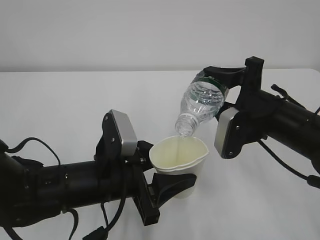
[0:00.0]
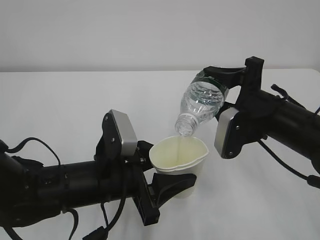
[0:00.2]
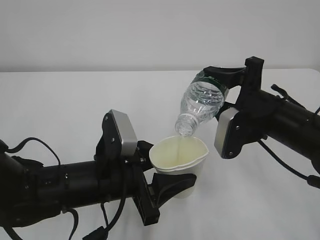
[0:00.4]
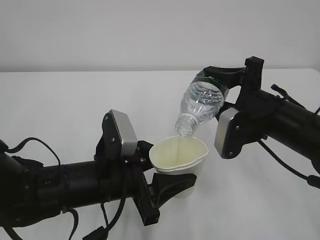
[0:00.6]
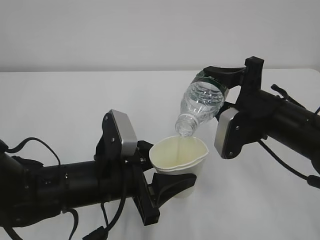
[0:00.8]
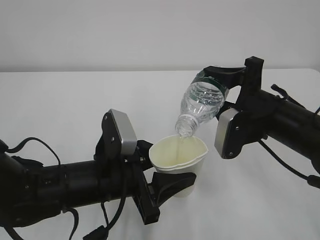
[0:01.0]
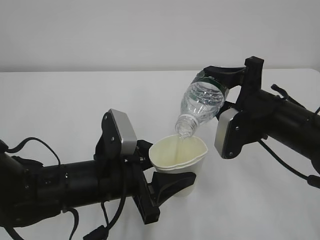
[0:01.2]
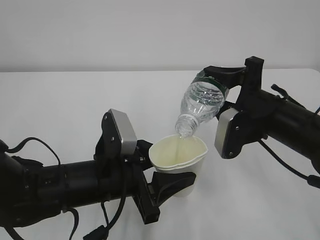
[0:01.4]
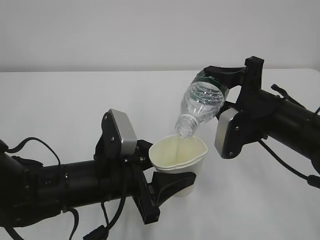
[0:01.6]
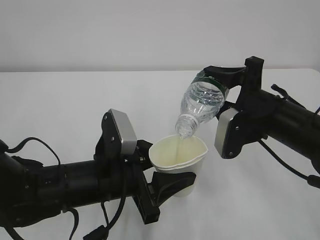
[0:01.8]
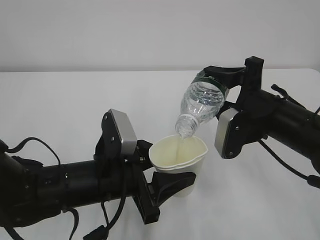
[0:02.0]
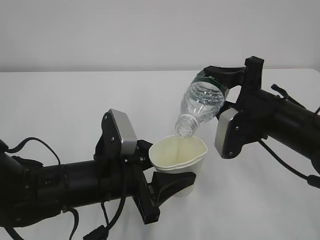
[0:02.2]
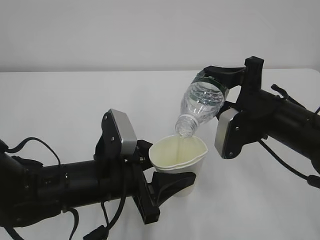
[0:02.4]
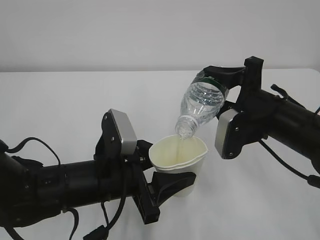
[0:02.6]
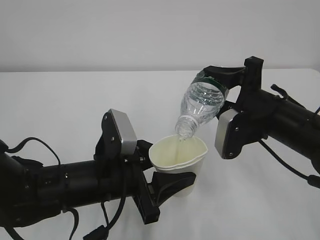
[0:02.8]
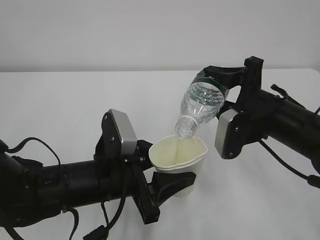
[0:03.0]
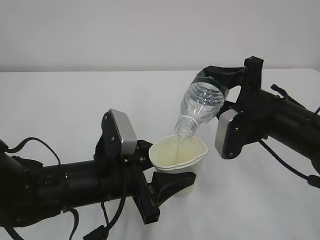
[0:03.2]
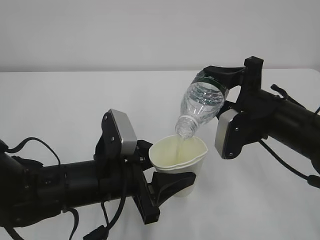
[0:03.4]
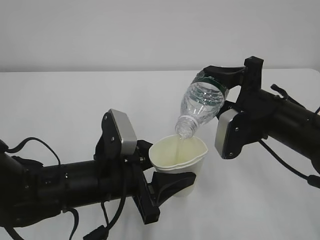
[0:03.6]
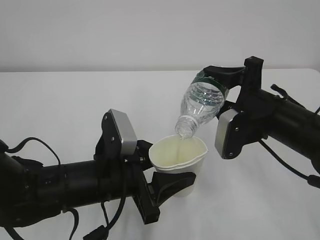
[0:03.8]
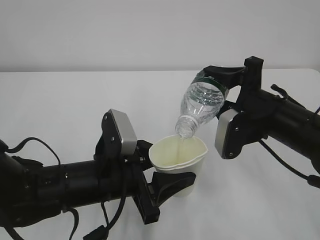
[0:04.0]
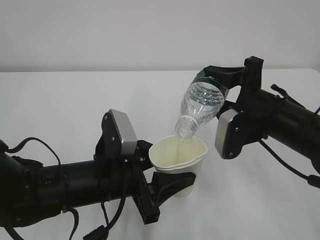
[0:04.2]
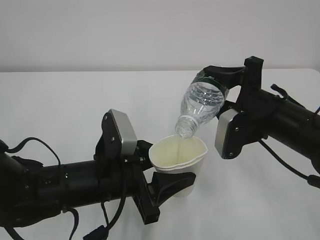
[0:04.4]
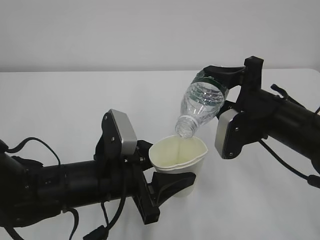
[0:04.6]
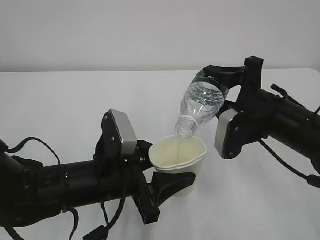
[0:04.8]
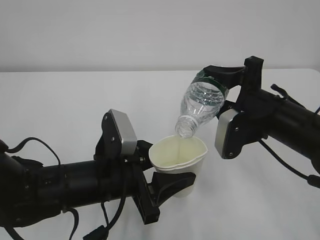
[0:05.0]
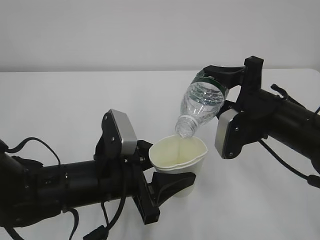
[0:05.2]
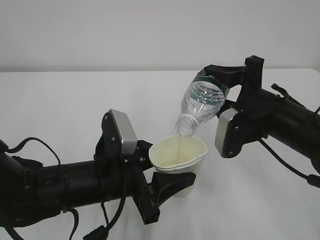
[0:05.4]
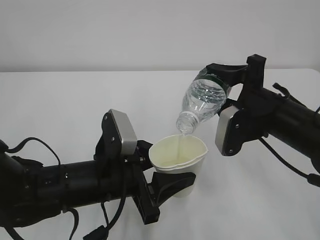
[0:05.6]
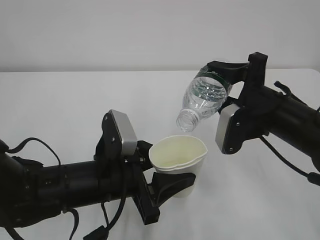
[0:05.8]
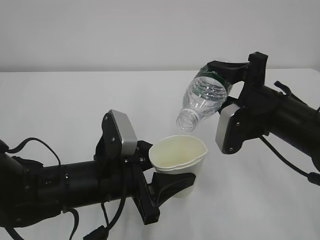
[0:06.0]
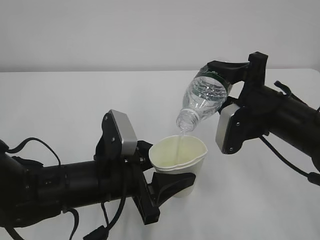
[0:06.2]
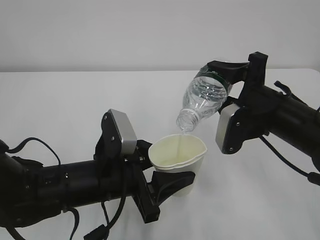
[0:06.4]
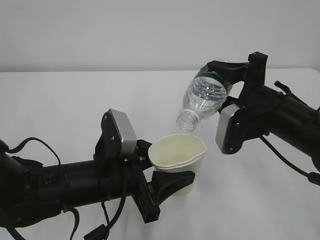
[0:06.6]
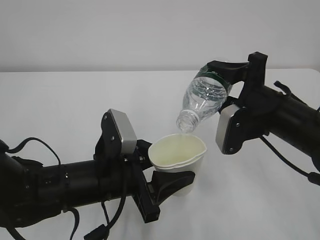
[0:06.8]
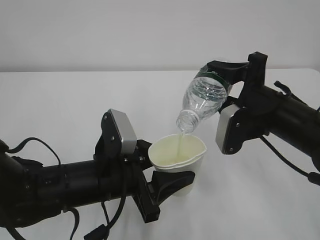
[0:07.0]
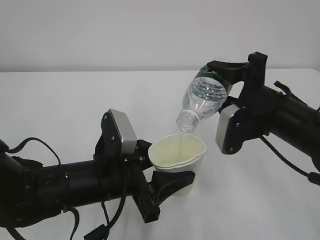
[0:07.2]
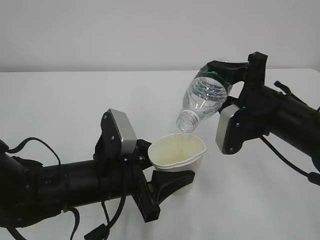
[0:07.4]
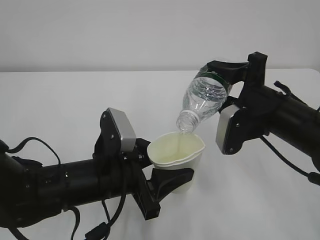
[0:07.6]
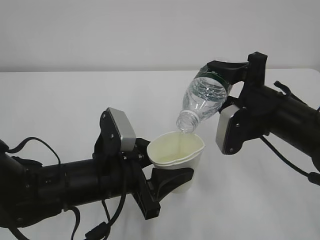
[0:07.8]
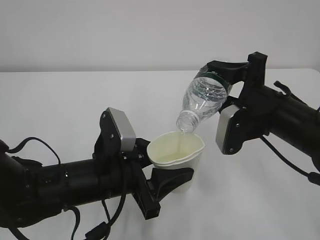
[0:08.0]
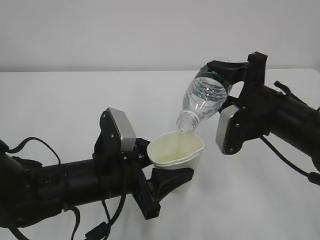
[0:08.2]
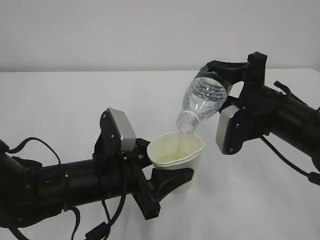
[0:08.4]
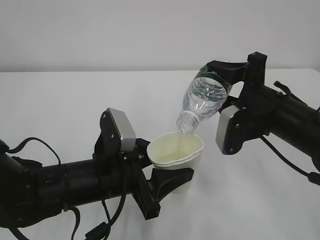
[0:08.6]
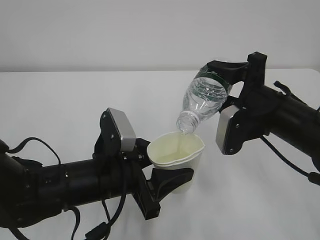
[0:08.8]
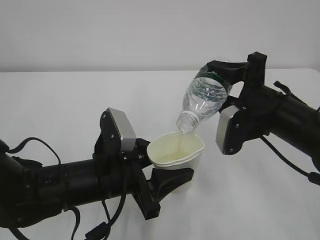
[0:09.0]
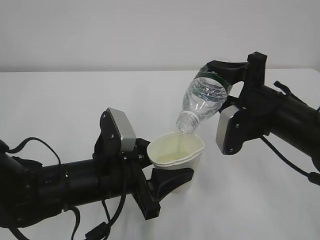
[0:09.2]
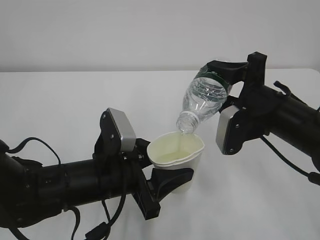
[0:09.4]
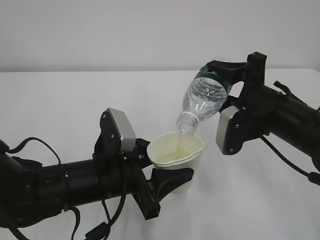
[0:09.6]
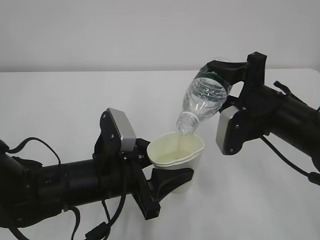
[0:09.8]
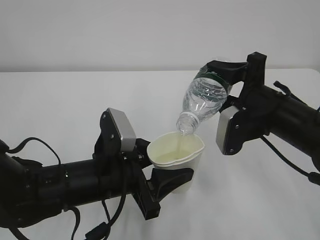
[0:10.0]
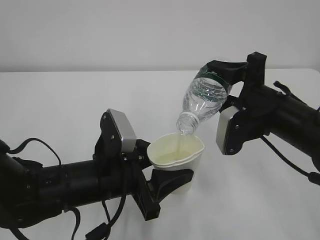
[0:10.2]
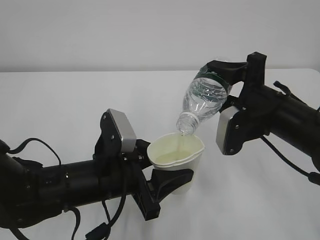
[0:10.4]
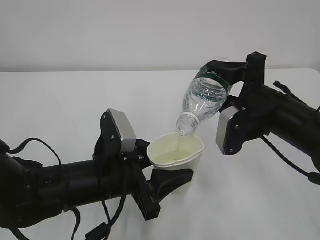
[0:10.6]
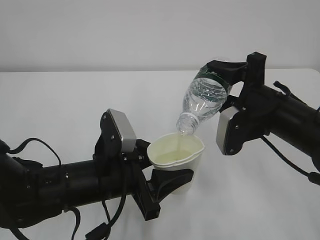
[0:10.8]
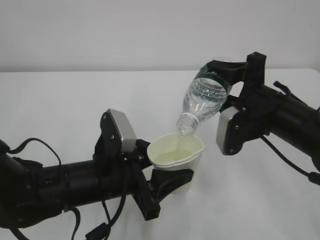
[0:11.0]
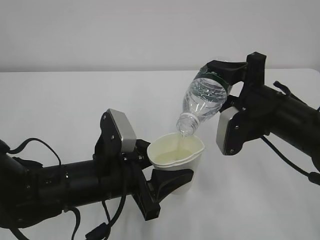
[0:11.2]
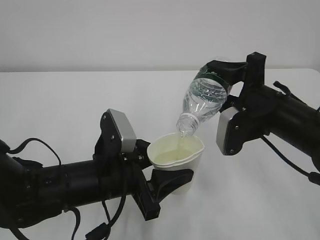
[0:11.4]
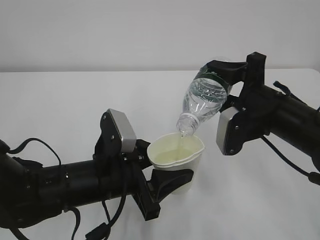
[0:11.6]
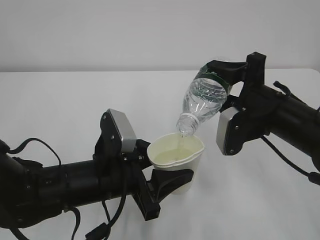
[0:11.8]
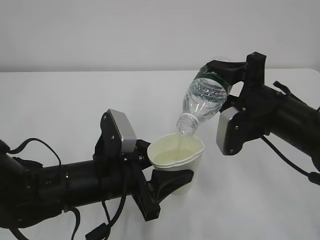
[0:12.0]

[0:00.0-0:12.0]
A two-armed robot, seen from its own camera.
0:00.0 to 0:07.6: Both grippers stay about where they are.
0:07.6 to 0:12.0: Both grippers stay about where they are.

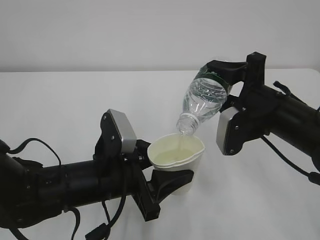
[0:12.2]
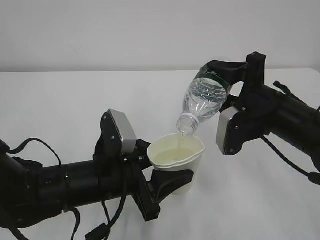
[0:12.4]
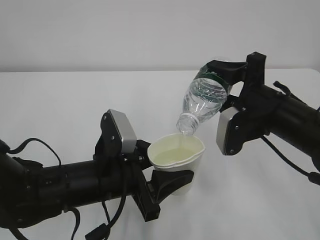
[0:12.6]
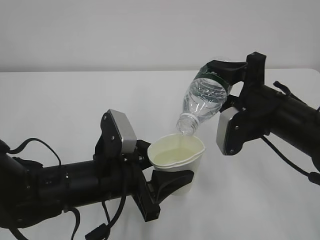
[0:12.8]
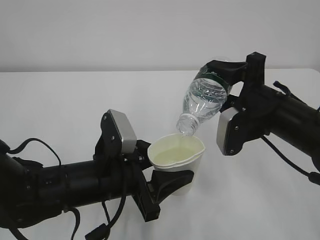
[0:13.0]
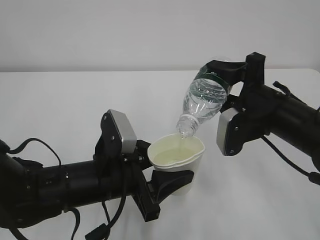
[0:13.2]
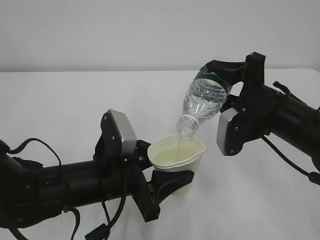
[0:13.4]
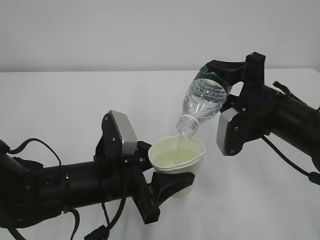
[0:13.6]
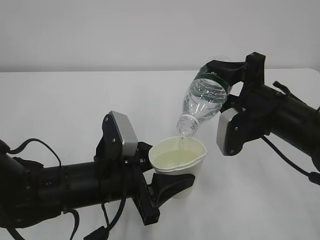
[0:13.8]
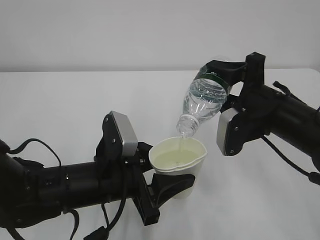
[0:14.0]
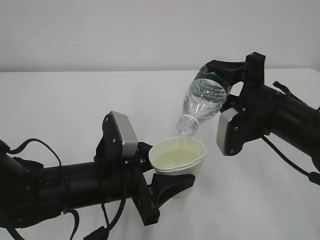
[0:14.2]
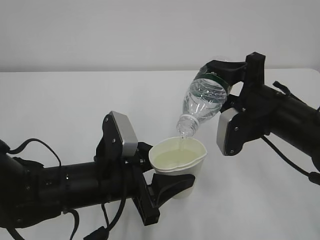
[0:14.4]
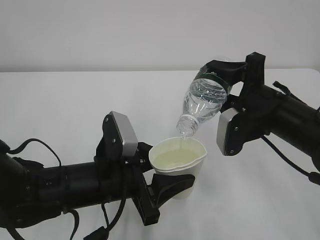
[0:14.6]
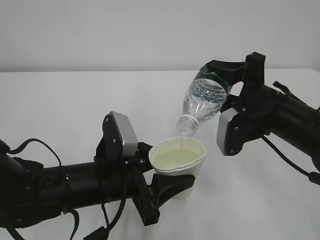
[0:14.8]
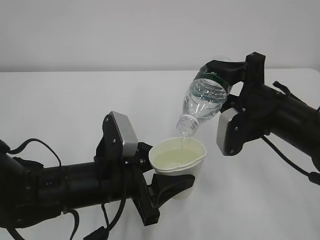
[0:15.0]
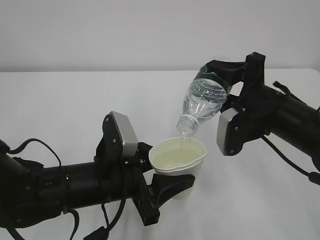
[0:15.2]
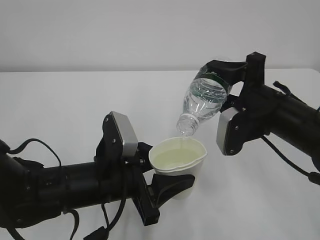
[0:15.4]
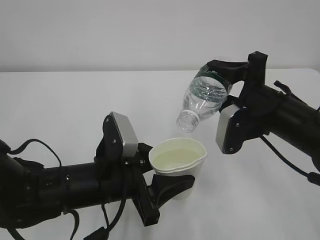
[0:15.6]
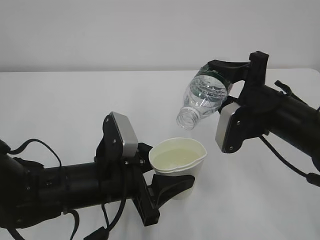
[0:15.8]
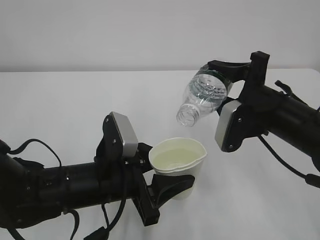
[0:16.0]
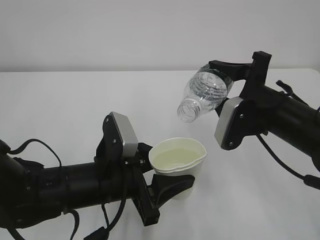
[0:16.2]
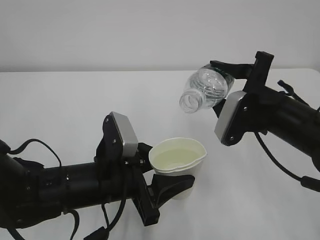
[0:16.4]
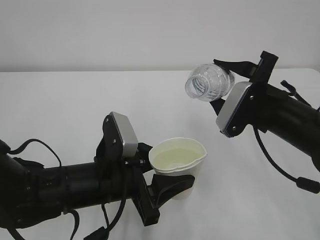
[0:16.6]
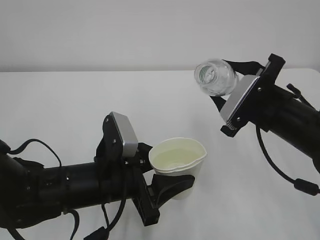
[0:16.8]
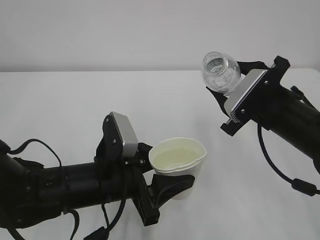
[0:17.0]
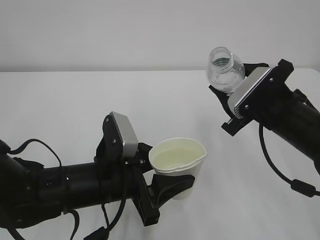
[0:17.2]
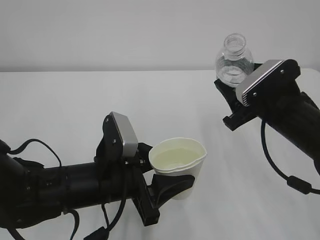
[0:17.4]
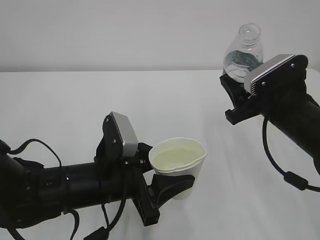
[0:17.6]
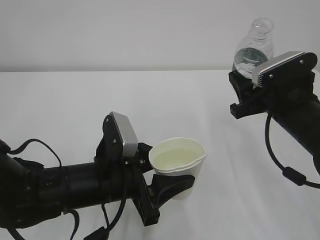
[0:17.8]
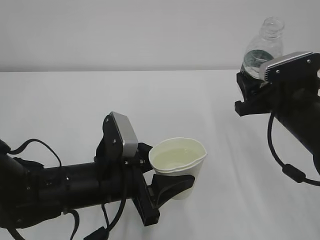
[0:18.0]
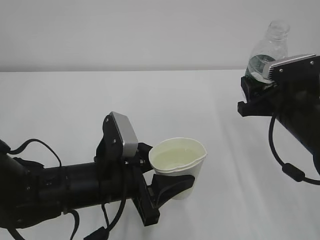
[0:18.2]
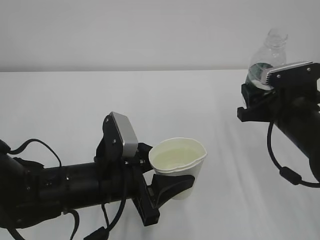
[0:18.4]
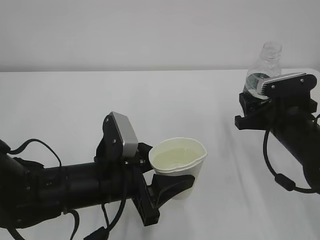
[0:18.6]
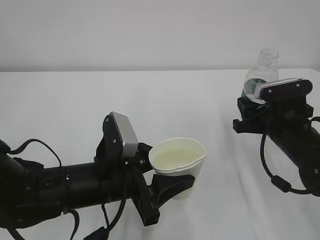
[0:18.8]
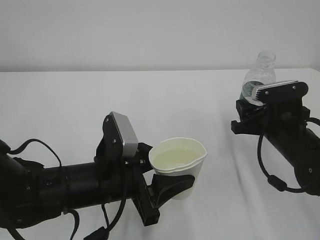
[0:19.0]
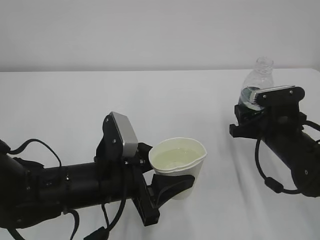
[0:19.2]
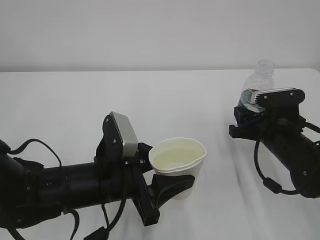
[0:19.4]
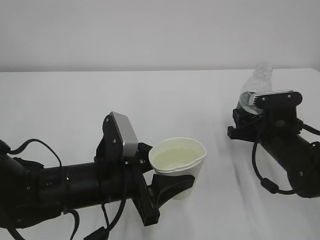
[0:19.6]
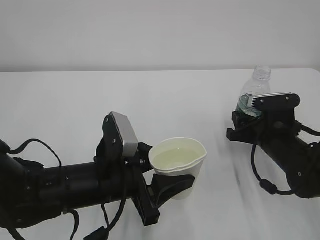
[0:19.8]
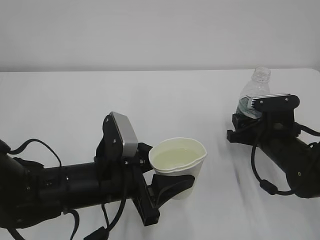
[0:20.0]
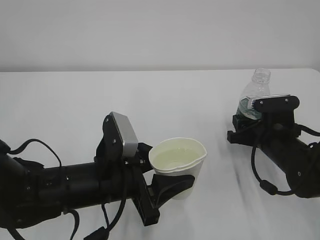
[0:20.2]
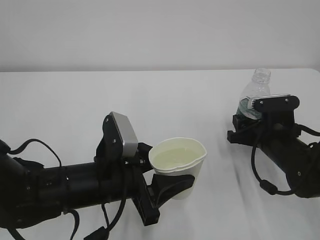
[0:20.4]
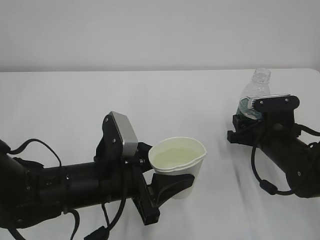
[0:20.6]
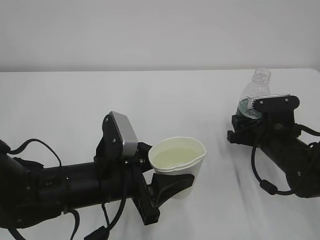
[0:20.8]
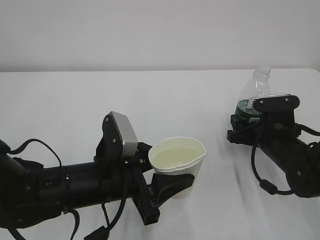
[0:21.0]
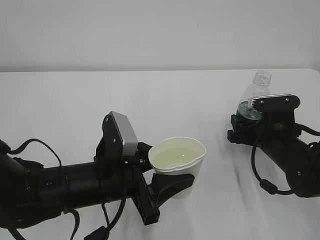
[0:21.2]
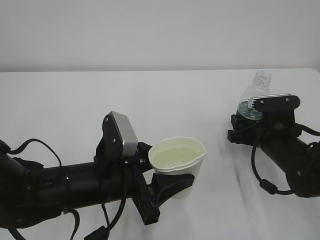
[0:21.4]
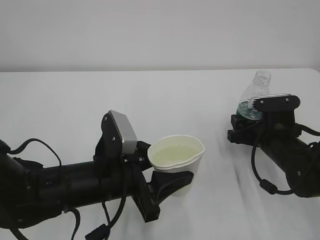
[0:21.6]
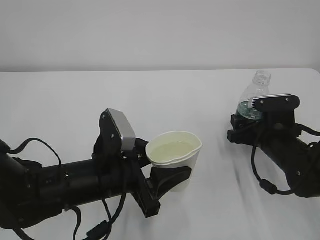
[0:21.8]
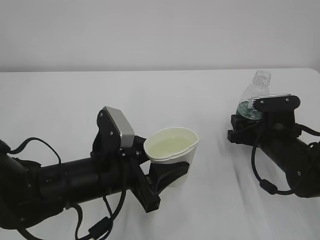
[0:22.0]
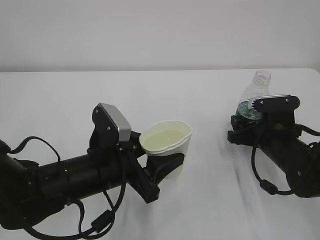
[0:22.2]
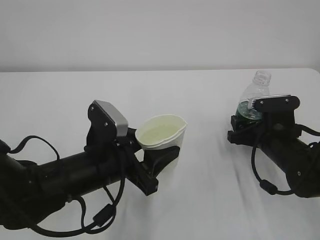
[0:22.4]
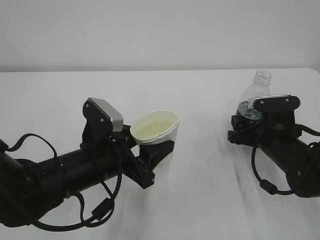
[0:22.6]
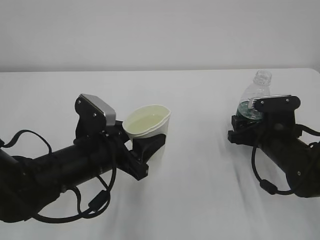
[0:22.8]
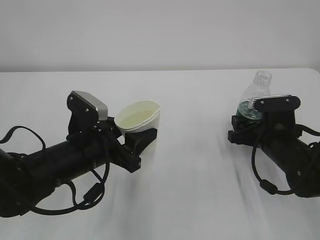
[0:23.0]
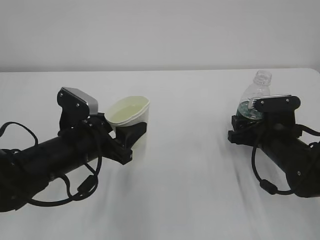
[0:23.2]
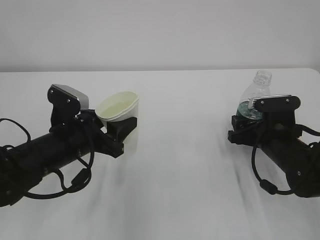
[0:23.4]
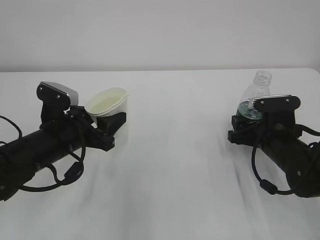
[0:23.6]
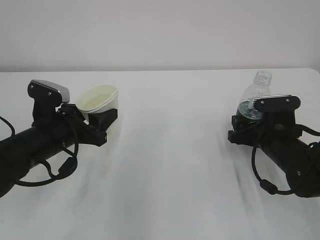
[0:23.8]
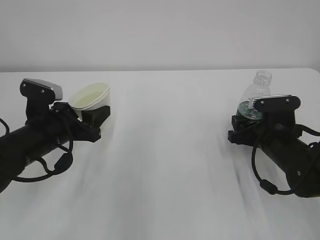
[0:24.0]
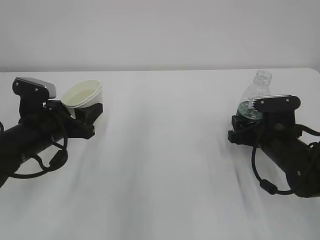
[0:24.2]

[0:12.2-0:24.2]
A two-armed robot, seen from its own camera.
0:12.2 to 0:15.2: The two grippers keep their place.
0:18.2 to 0:19.8: The right gripper goes approximately 10 cm downward.
0:19.8 to 0:21.2: The right gripper opens up.
0:21.2 to 0:22.6: The grippers make only small movements.
0:22.6 to 0:24.2: The left gripper is displaced to the left and forward by about 15 cm.
